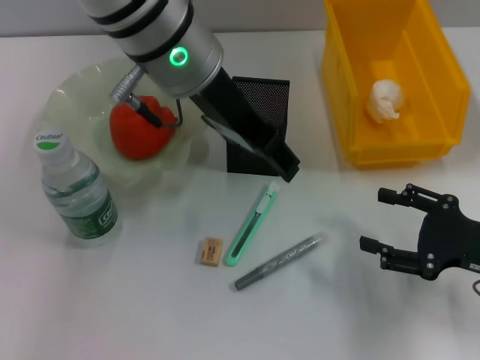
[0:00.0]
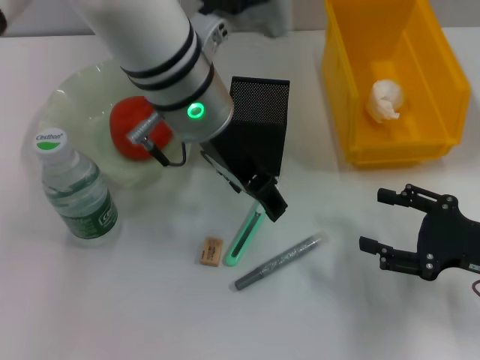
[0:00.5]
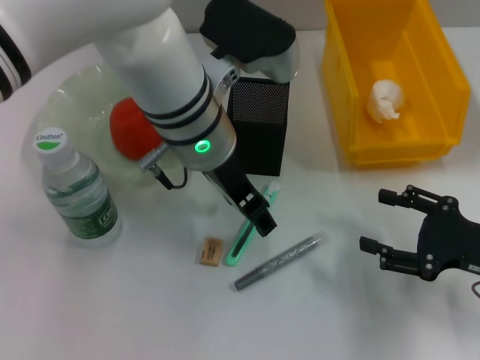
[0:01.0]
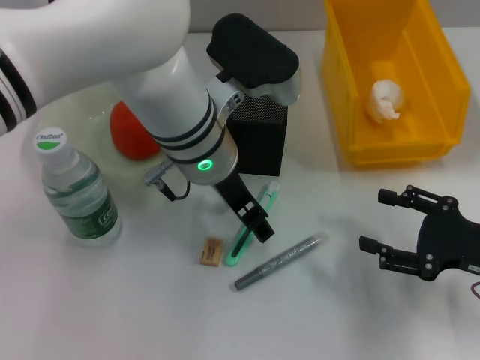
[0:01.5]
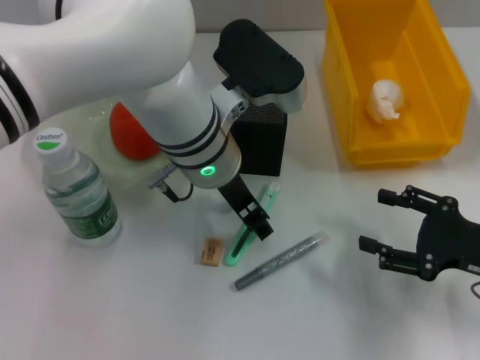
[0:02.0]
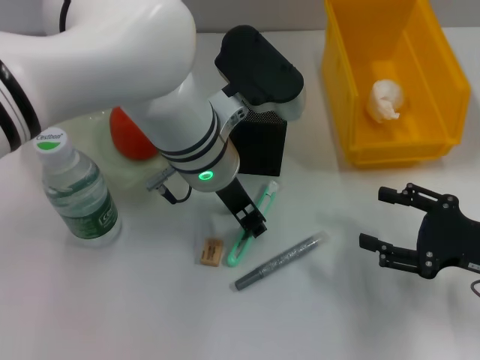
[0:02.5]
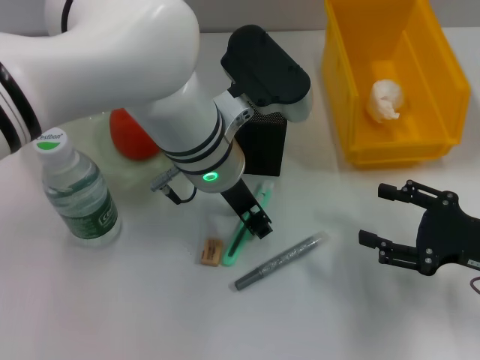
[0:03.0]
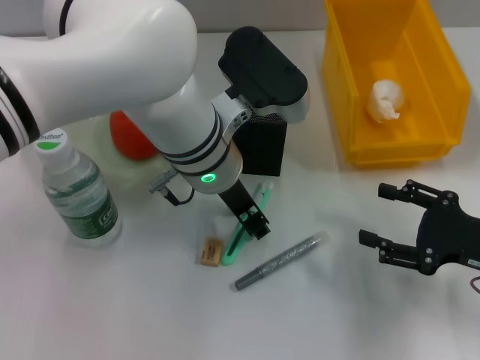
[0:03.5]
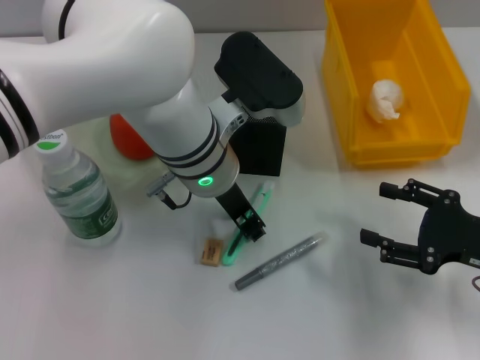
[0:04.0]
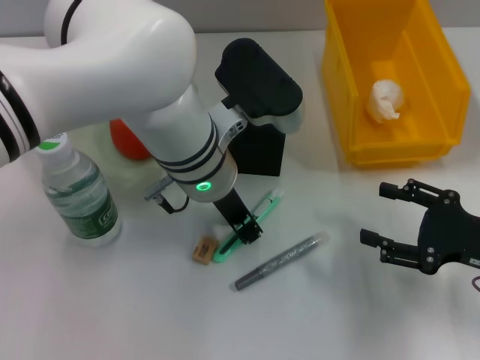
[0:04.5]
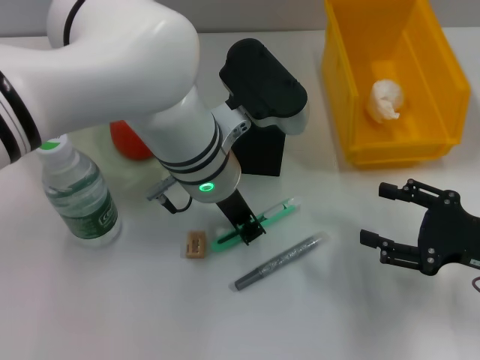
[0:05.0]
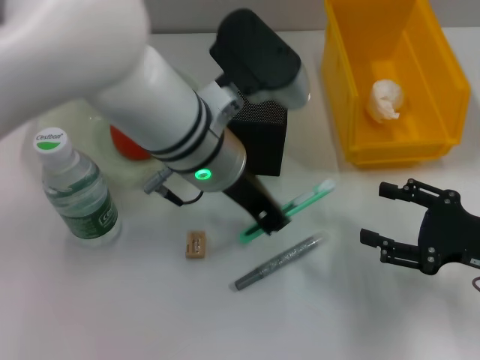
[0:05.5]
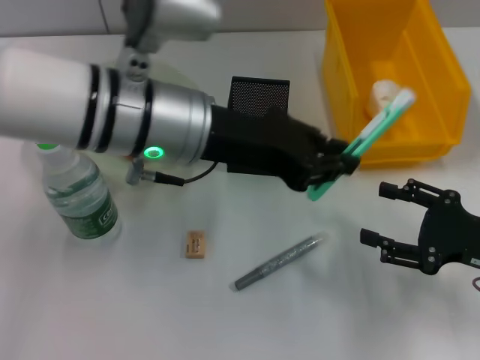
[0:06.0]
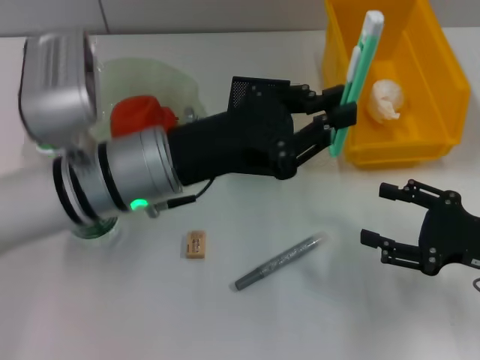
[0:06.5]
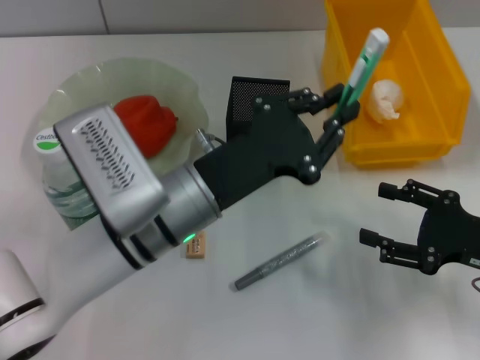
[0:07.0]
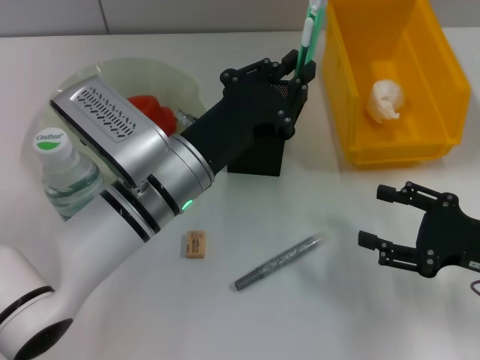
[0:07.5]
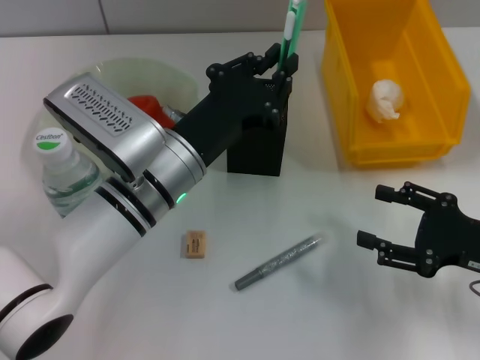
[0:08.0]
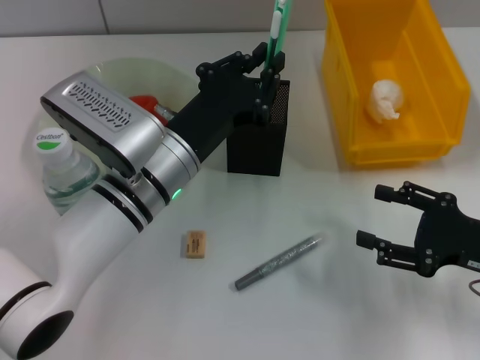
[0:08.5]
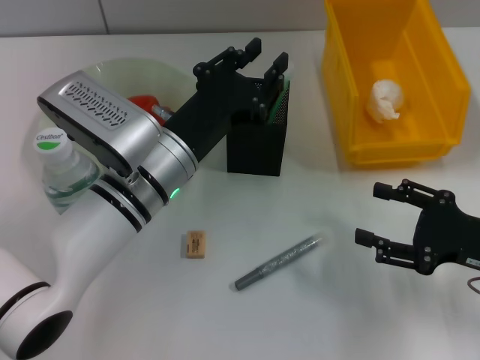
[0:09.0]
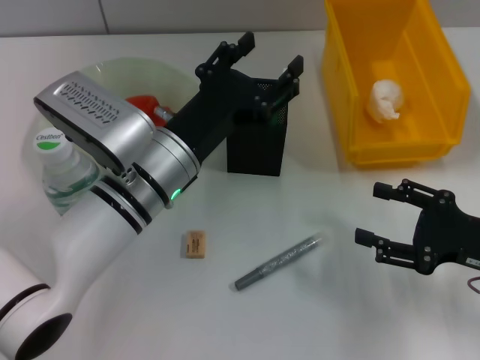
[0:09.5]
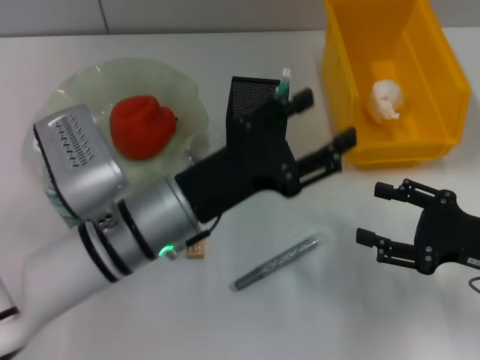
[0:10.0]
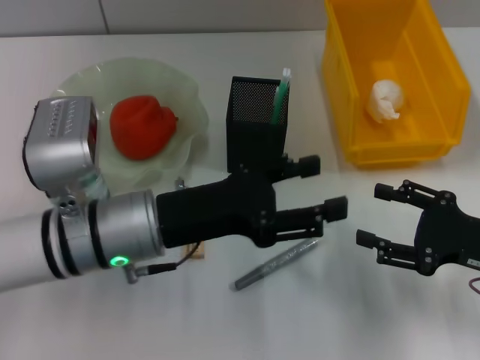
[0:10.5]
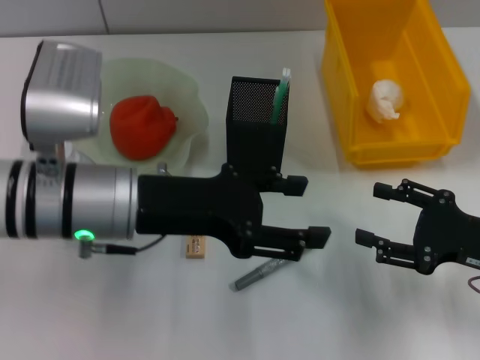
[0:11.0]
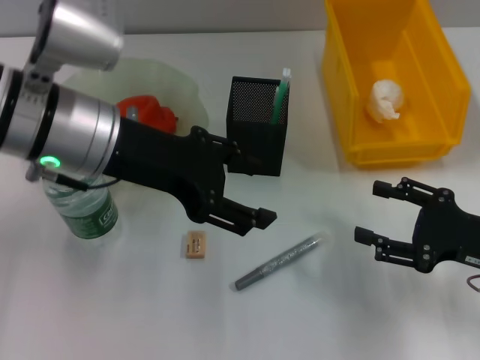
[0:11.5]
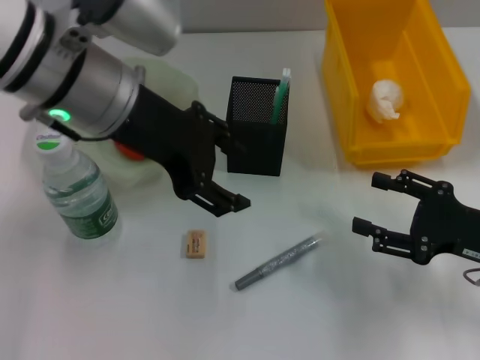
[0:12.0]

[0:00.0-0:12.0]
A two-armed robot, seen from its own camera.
Step, 0:00.0 to 0:04.5: Grab the blue utility knife with the left hand.
Step, 0:05.0 to 0:09.0: Place the blue utility knife into the pen holder with the left hand.
0:00.0 to 0:02.0: The left gripper goes some 10 cm downward.
0:02.0 to 0:04.0: The left gripper closes its fingers.
0:04.0 to 0:06.0: The left gripper is displaced to the left and upward by approximately 5 cm.
0:06.0 to 0:08.0: The left gripper heads downward, covering some 10 cm.
0:08.0 to 0:10.0: The left gripper opens.
0:10.0 to 0:12.0: The left gripper heads upward and forward, covering approximately 15 cm.

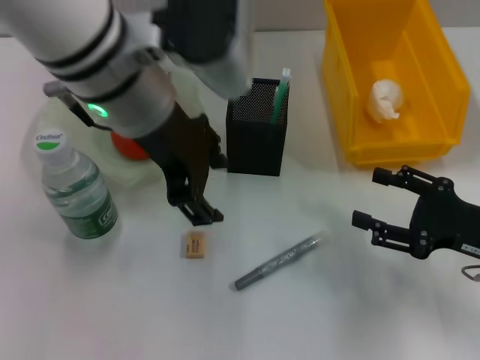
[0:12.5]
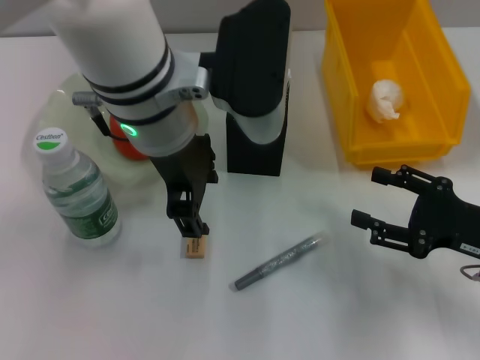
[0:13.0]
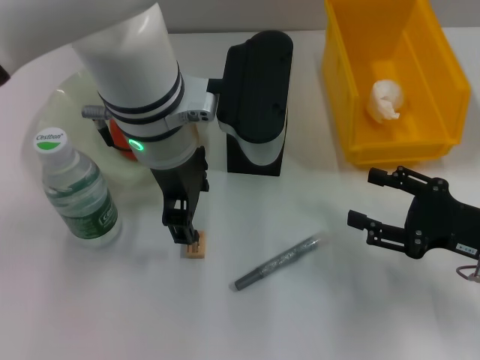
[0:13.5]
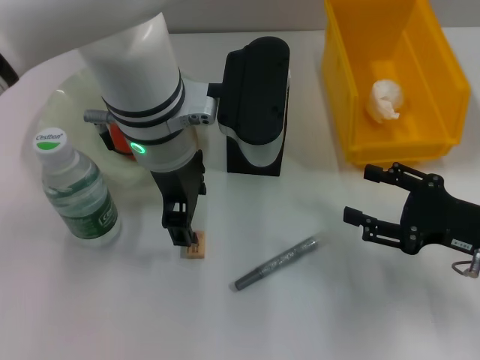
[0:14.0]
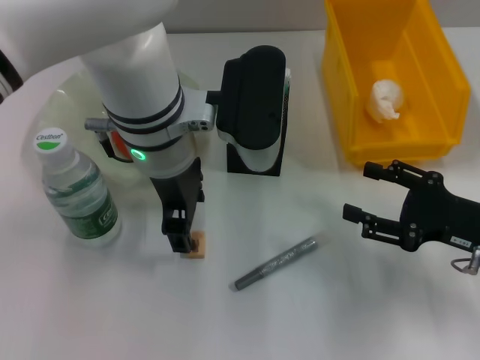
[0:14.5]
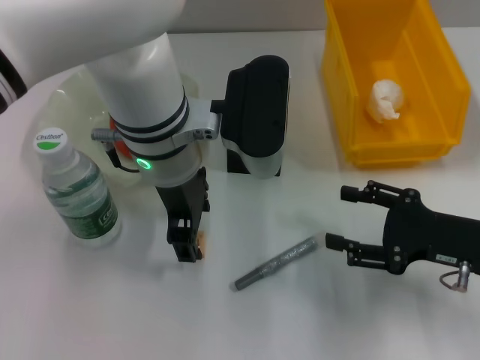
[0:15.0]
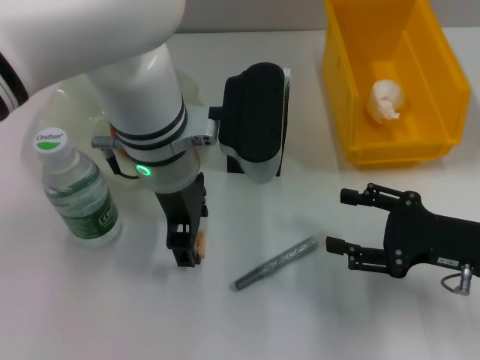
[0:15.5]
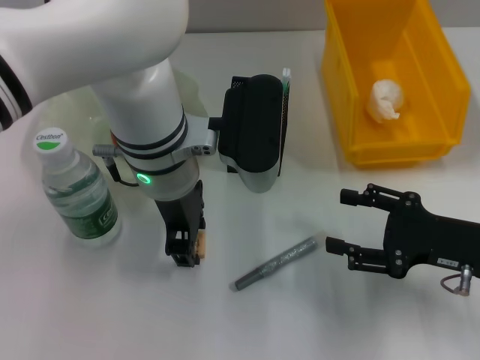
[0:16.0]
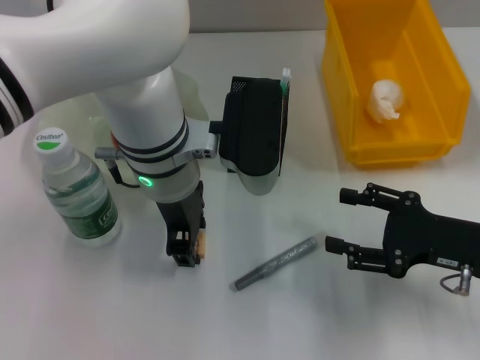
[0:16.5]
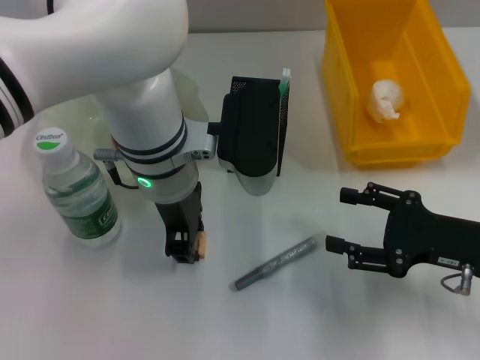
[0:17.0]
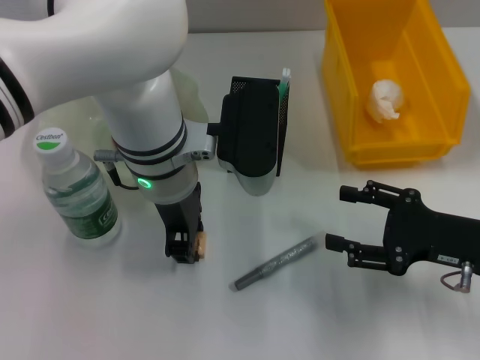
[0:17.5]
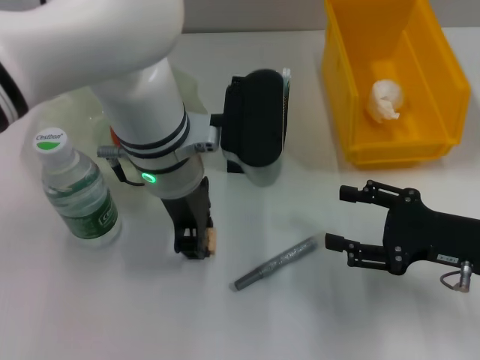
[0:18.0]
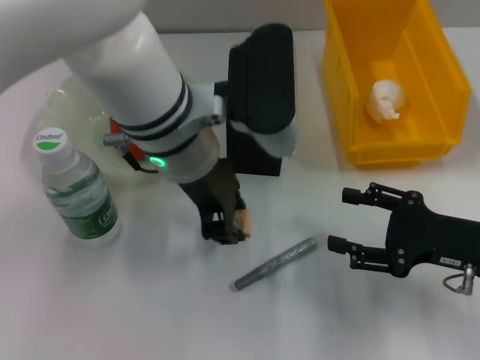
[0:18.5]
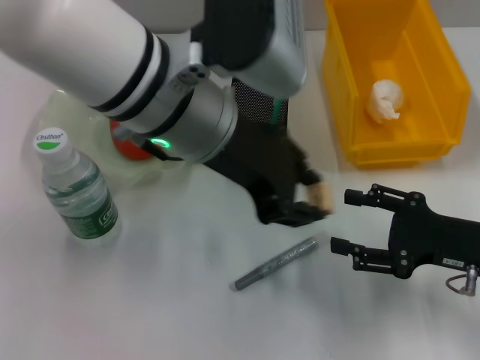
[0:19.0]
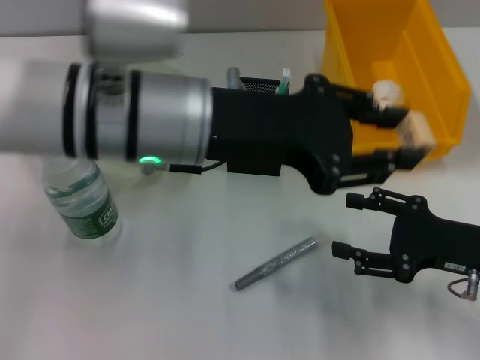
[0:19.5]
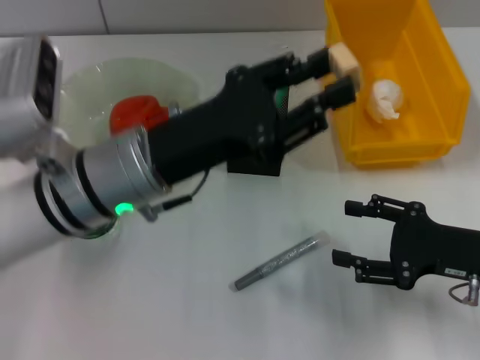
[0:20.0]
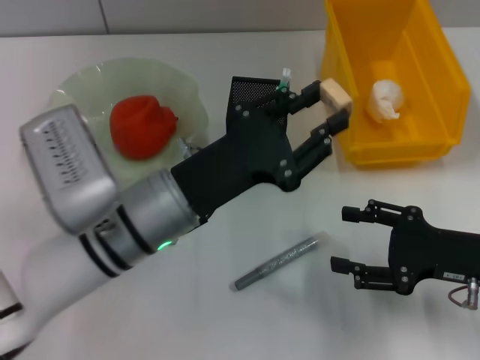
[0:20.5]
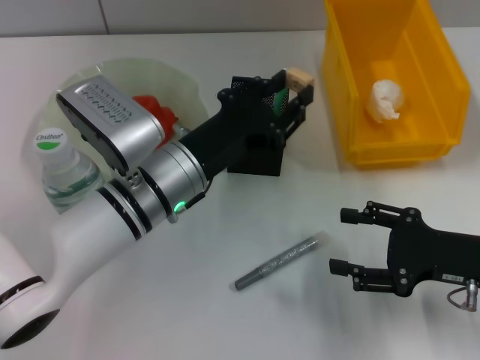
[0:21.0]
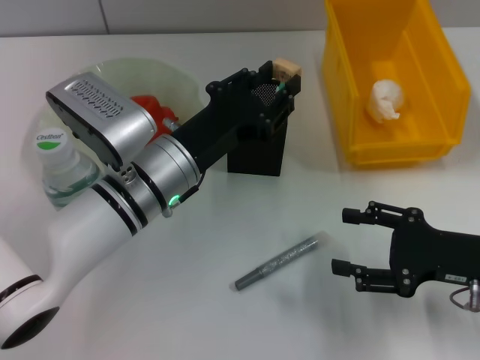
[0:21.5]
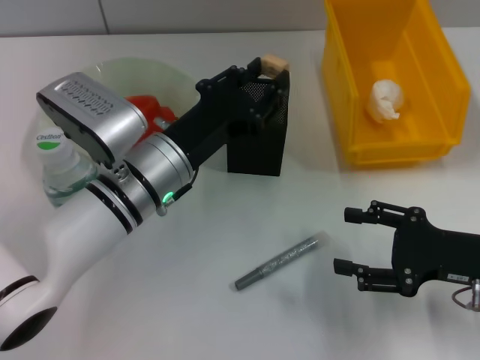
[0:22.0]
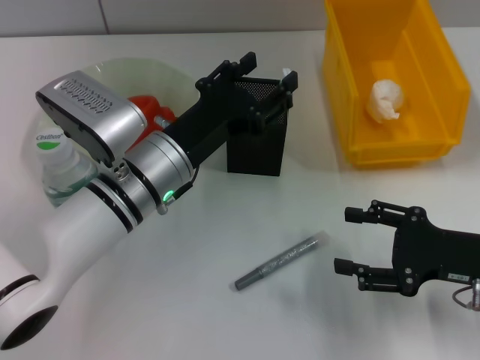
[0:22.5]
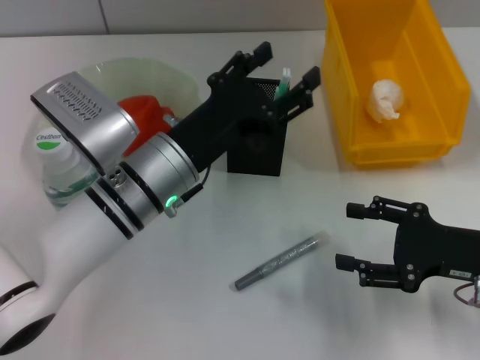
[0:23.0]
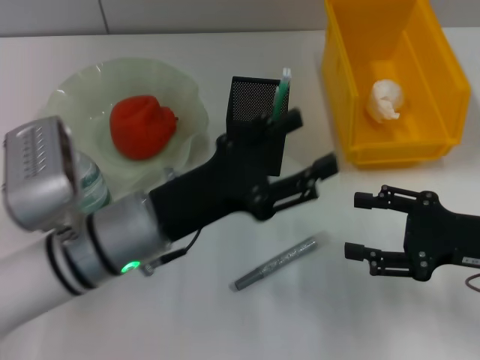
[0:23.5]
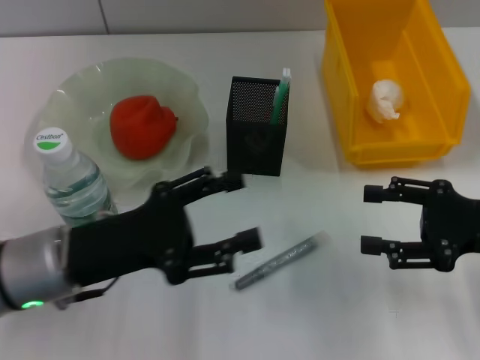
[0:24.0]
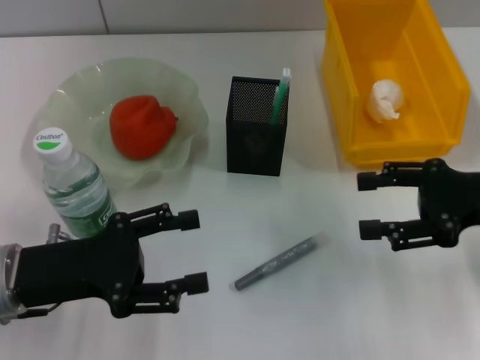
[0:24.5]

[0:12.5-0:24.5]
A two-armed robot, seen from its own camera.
Step, 0:12.5 to 0:17.0: Grab the eraser with the left hand.
Step, 0:17.5 to 0:23.0: Place the eraser into the pen holder with the left hand.
0:12.5 to 0:14.5: The left gripper moves downward, approximately 5 cm.
0:18.5 to 0:20.5: The left gripper goes some 10 cm downward and backward.
0:22.5 to 0:24.5: The left gripper goes about 15 cm to the left and backward. Meanwhile the right gripper is displaced upward by approximately 5 cm.

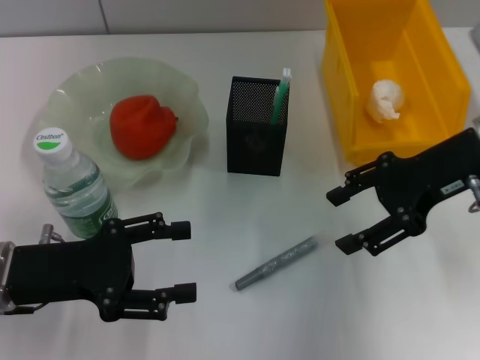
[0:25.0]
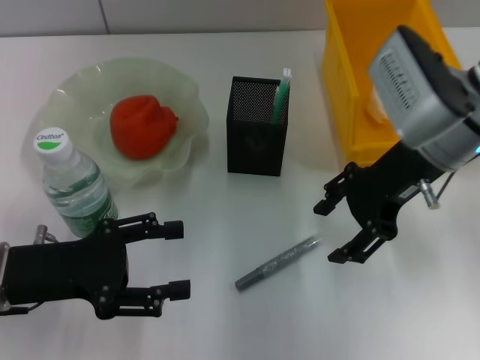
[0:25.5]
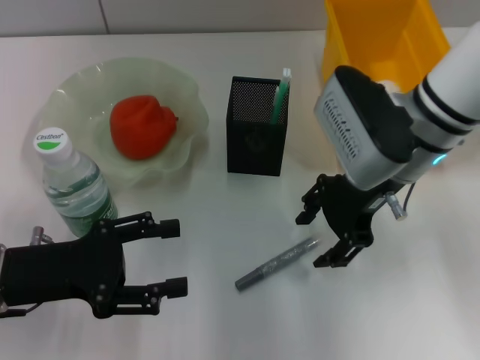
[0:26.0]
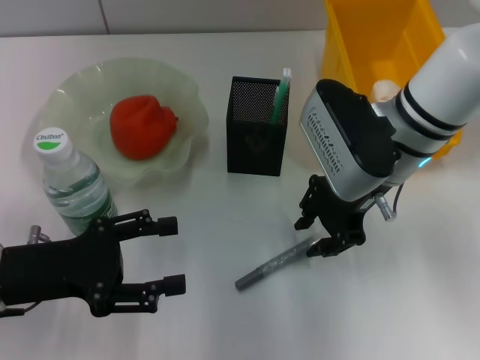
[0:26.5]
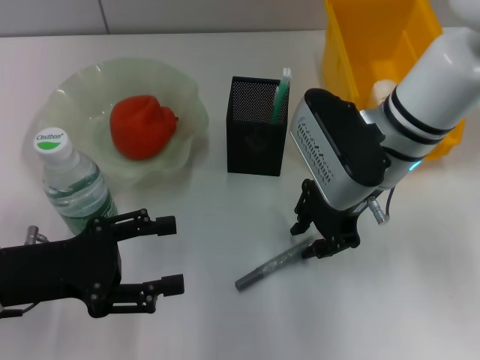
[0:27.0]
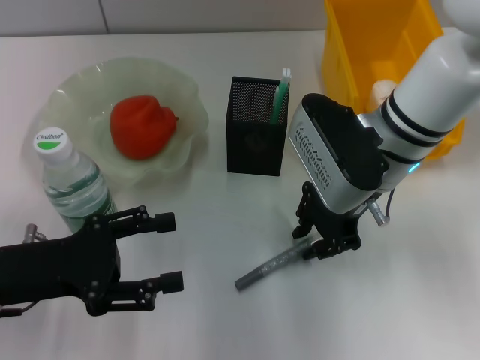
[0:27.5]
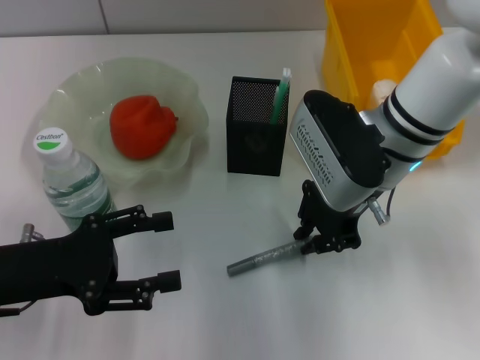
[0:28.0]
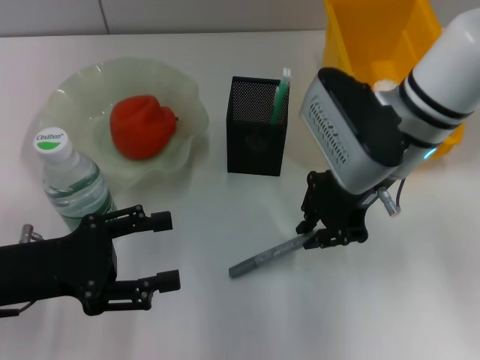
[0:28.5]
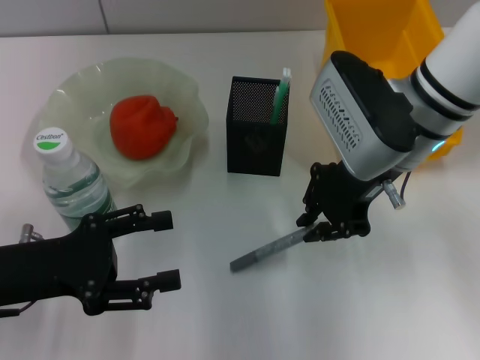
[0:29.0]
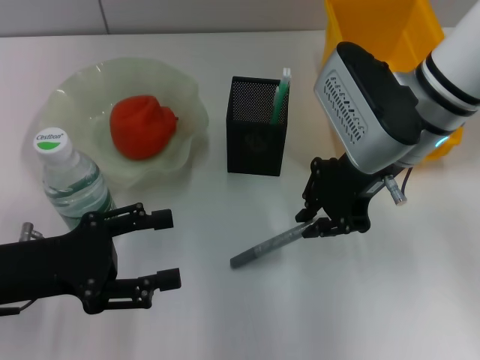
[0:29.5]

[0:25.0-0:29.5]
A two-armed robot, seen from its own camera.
Step, 0:25.0 to 0:27.5: Grab the gray glue with the right hand.
0:25.0 to 0:27.0: The right gripper goes about 10 cm to the left, and closes its fingers.
0:27.0 to 0:29.5: The grippers make only small movements.